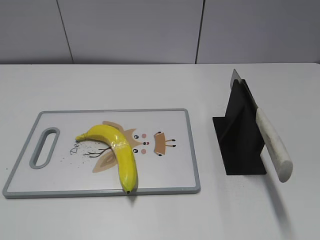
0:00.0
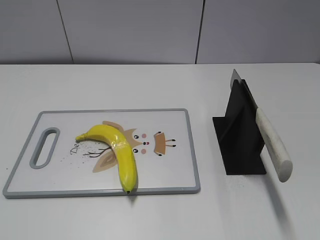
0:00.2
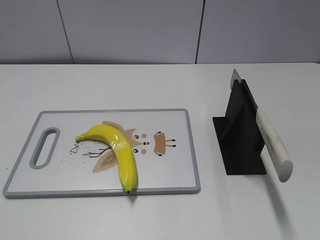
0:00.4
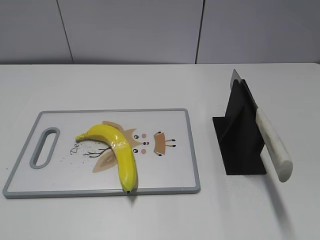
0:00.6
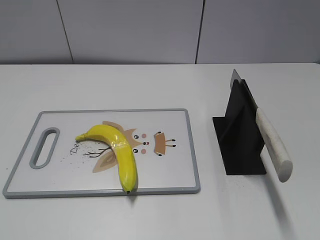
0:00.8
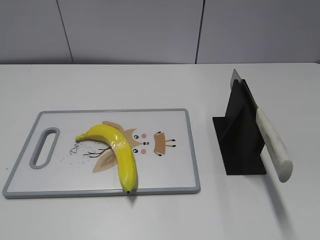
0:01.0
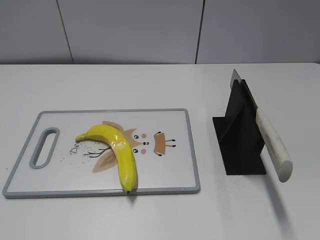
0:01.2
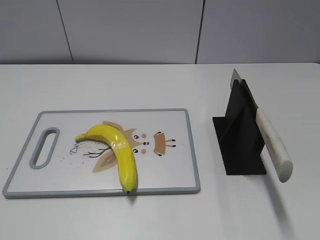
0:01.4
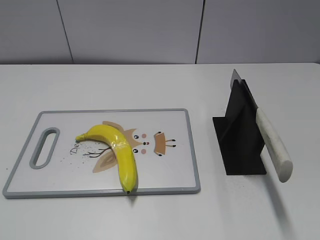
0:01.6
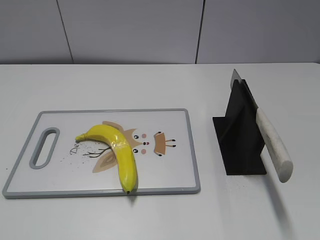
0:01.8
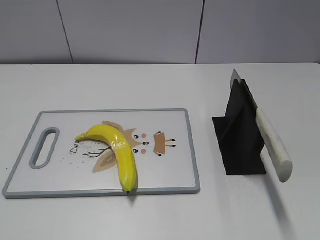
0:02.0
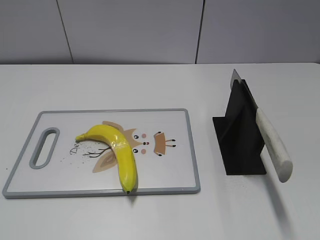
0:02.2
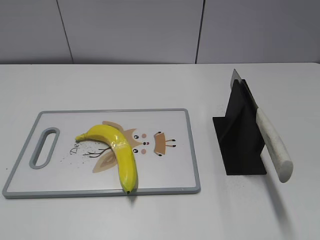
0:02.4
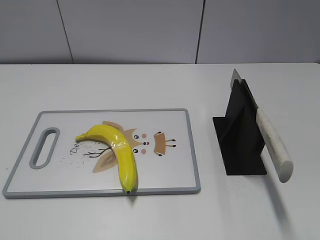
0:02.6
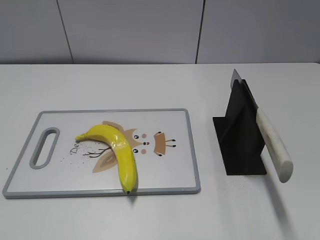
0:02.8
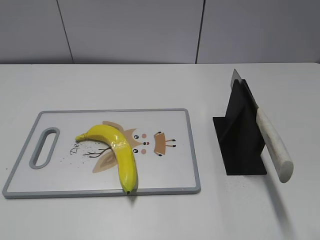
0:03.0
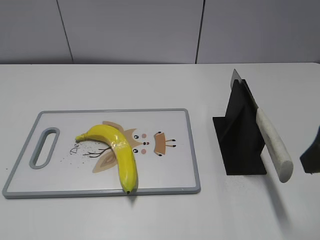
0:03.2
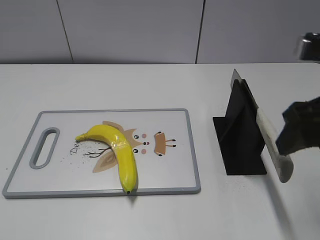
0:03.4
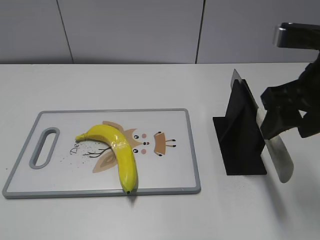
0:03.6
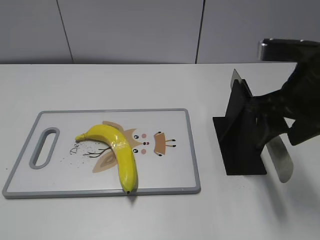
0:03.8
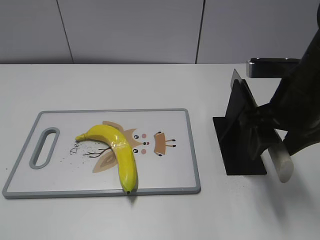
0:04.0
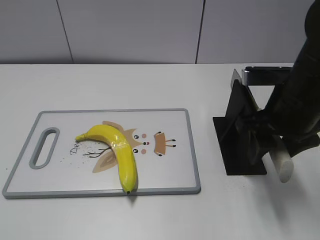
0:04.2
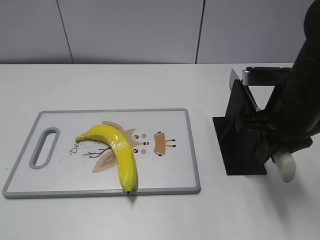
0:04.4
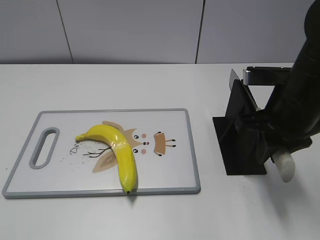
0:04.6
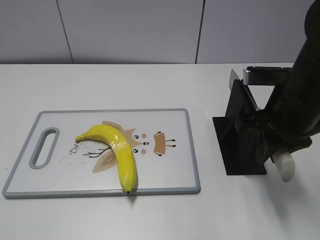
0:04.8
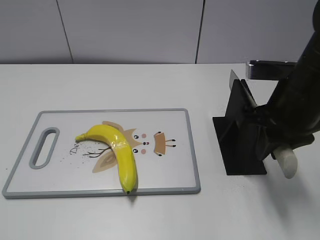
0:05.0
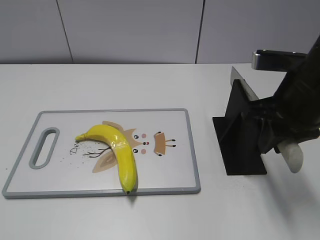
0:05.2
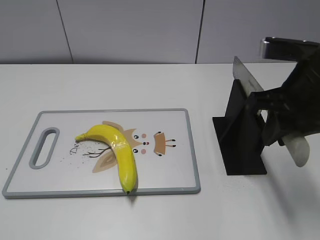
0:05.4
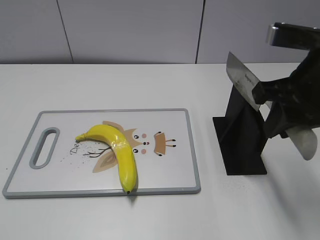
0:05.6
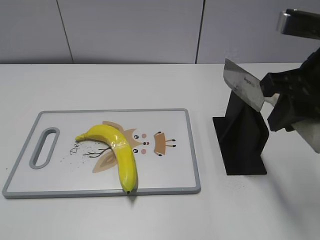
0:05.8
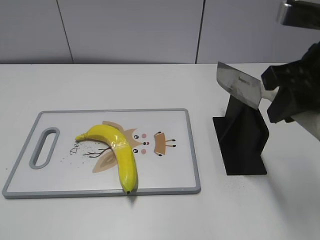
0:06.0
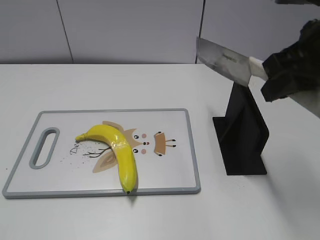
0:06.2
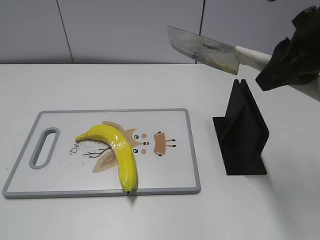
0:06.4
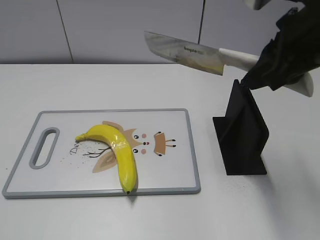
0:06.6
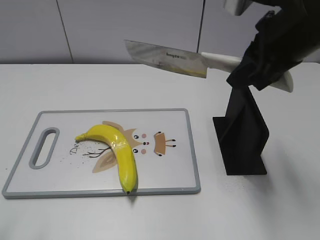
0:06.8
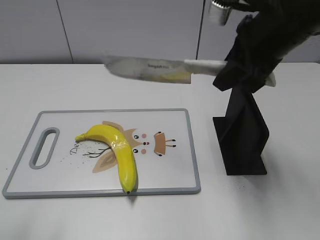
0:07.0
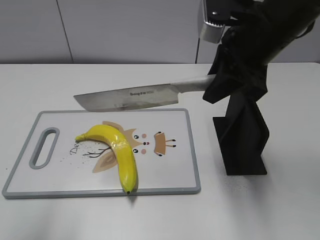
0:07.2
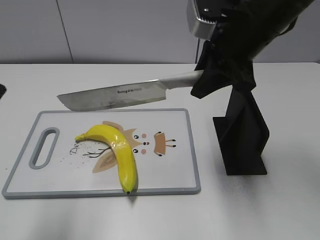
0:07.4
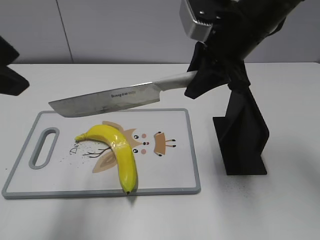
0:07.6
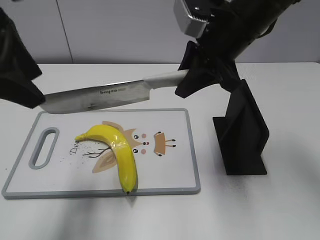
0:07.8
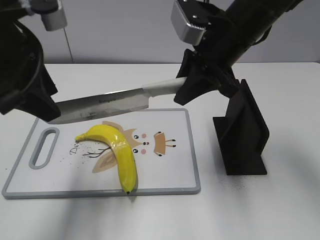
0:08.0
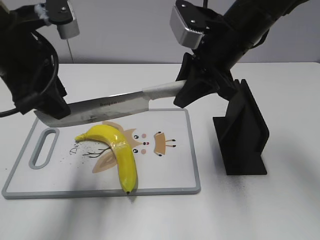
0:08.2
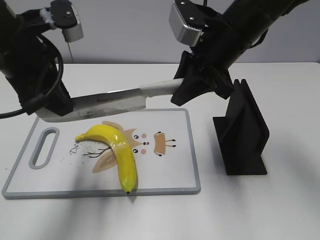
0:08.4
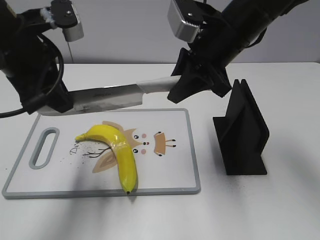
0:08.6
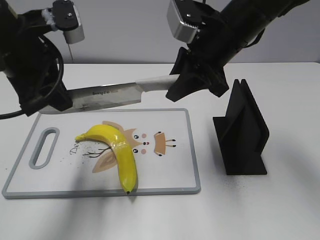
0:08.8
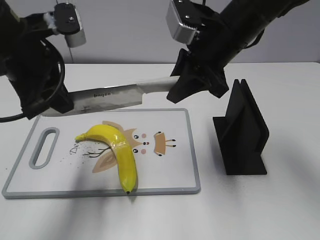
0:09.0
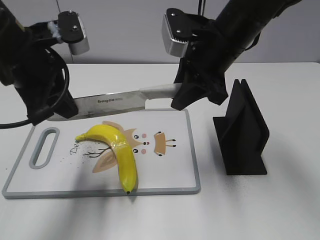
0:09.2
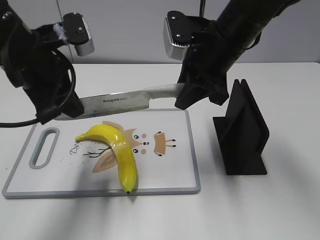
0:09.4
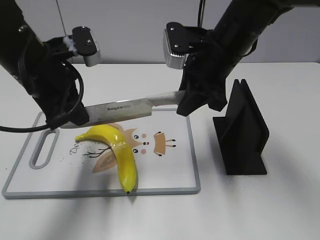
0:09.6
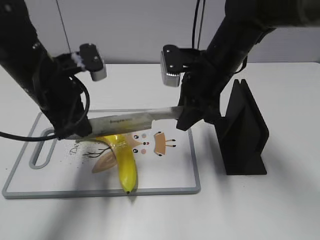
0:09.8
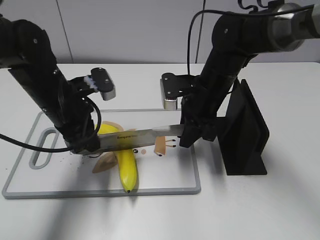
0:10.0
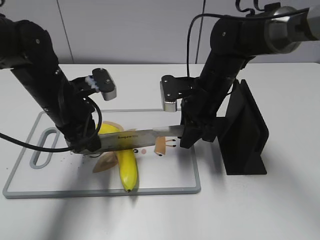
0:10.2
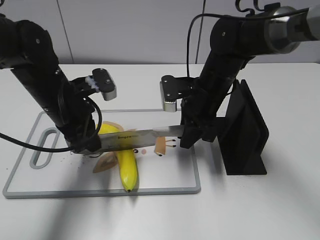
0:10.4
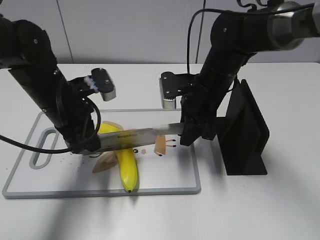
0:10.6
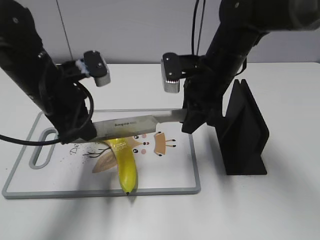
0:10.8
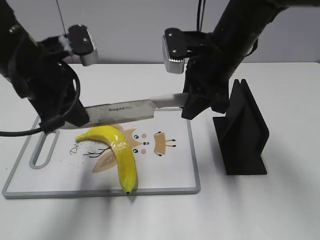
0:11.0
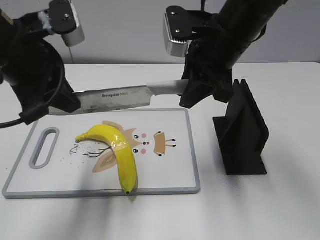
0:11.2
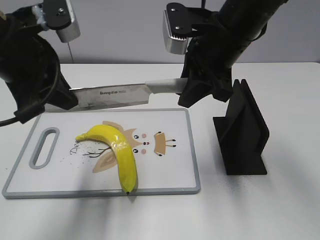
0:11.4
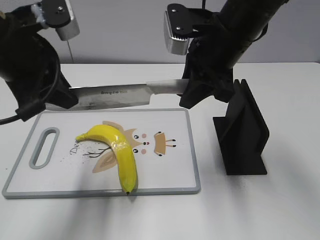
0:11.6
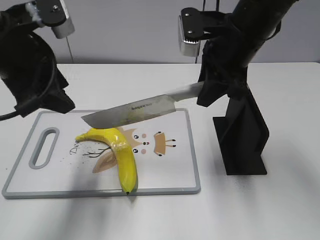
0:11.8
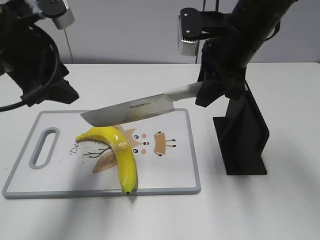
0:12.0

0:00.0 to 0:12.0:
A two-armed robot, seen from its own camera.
Task of the whole recording: cut plastic banana.
Step, 0:00.0 to 0:05.4: Grab the knife handle with your right hand.
Step, 0:05.6 to 0:10.8: Lift the knife with your right hand.
0:03.0 to 0:04.4: The right gripper moves forward, downward and to the left, some 15 cm, and closes.
0:04.4 to 0:06.0: The right gripper moves upward, roughly 10 cm.
0:06.0 to 0:07.6: The right gripper heads forward and to the left, covering roughly 15 cm. The left gripper heads forward, to the right and upward, covering approximately 25 cm.
0:07.6 to 0:09.0: The left gripper heads forward and downward, covering about 15 cm, and closes its fingers.
0:09.0 to 0:10.4: The grippers both shift downward by some 15 cm.
0:10.4 to 0:12.0: Both grippers move upward, roughly 15 cm. The left gripper opens up.

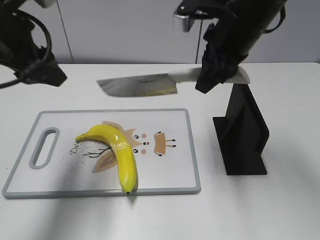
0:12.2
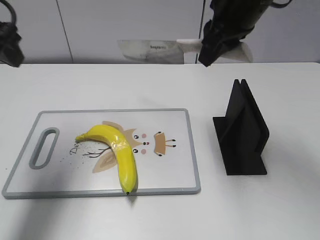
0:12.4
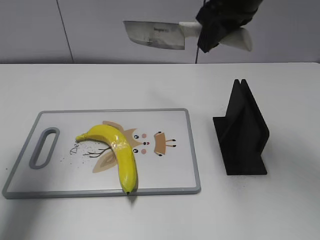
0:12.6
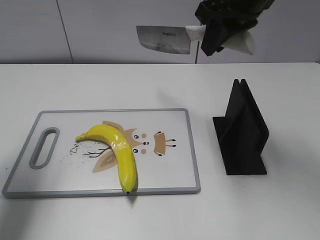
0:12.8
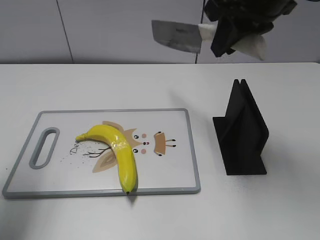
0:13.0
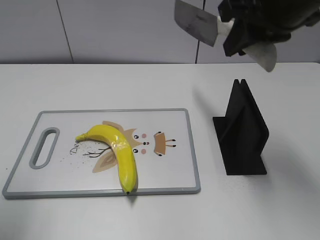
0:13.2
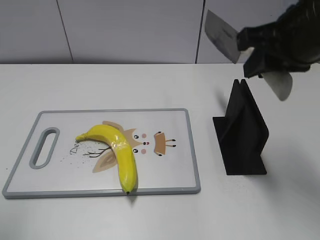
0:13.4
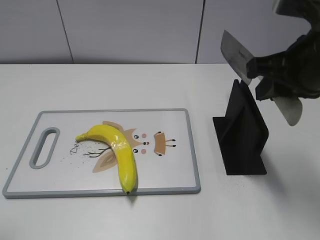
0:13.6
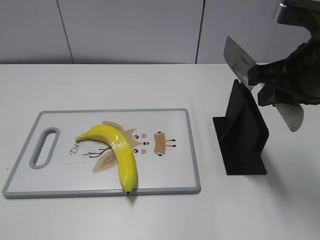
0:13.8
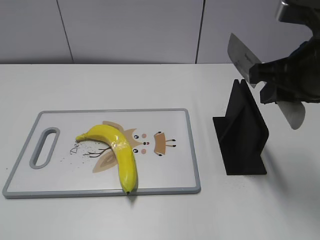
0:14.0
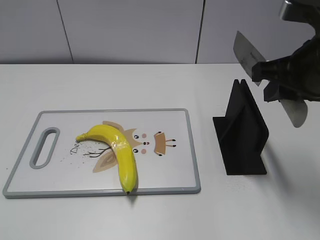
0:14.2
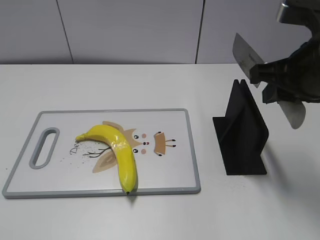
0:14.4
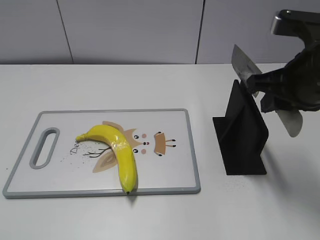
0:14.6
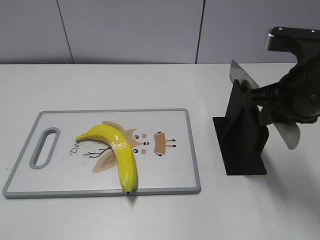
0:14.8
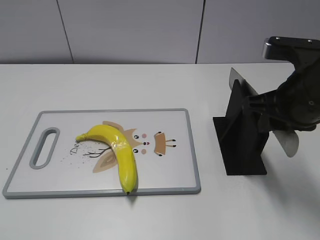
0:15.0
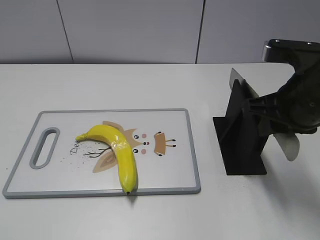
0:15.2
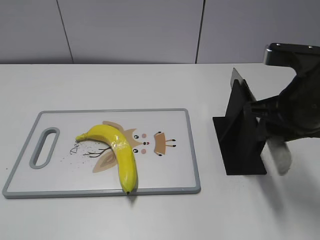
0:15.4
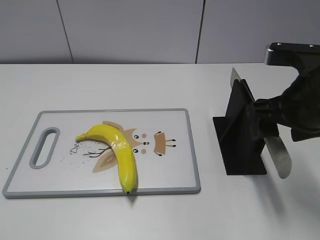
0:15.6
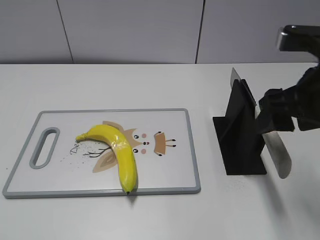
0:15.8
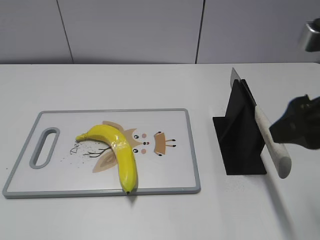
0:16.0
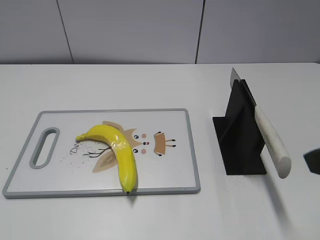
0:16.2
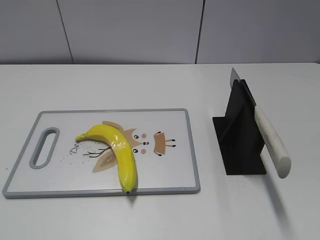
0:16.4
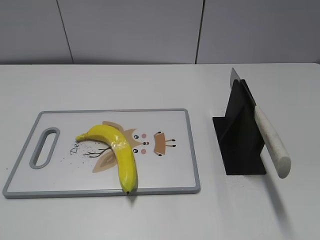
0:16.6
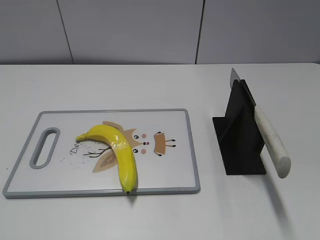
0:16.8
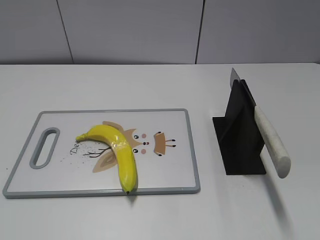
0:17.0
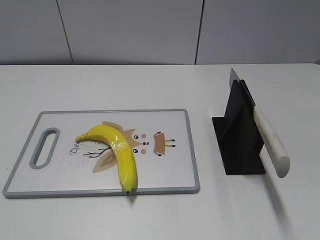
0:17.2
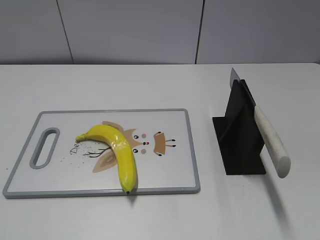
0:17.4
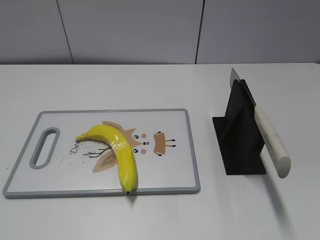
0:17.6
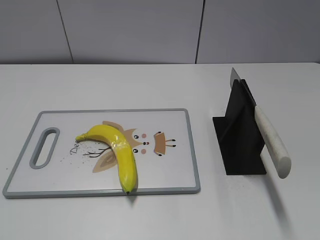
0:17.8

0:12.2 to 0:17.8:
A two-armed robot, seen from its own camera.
Task of the whole recording: cut plastic banana.
Step, 0:13.4 to 0:14.2: Lift the knife with your right hand.
Step, 0:14.4 to 0:17.8: Place the knife on the storage rack with your right hand.
0:12.2 to 0:13.6: The right gripper heads backward and to the right, covering some 10 cm. Meanwhile the left gripper heads backward and to the left, covering about 20 cm.
0:13.6 to 0:15.0: The right gripper is displaced downward by some 5 cm.
0:15.0 to 0:16.4: The right gripper moves backward, about 15 cm, and opens up.

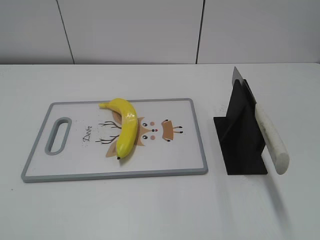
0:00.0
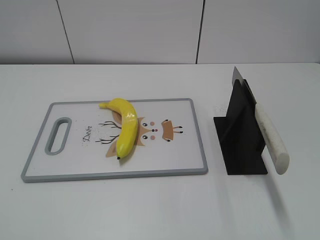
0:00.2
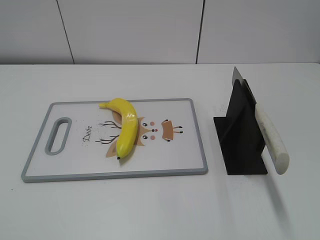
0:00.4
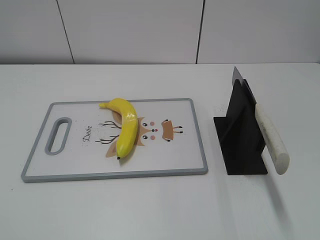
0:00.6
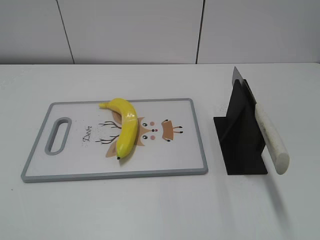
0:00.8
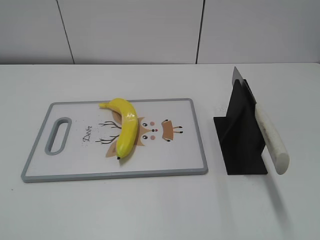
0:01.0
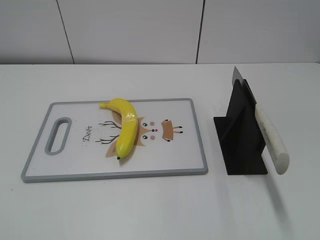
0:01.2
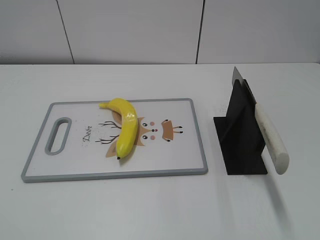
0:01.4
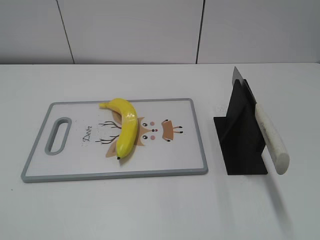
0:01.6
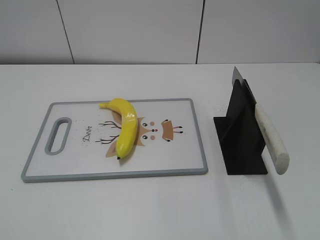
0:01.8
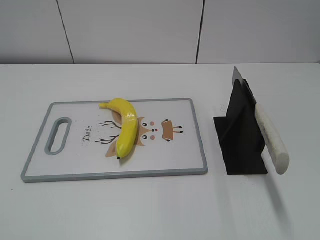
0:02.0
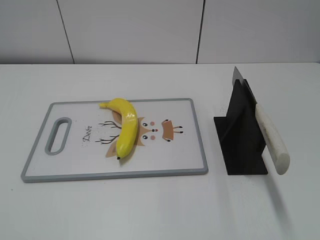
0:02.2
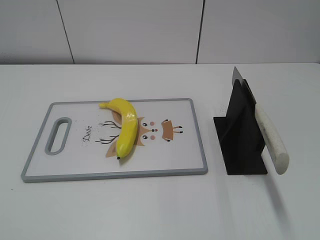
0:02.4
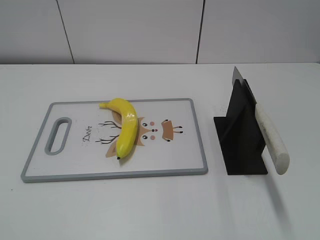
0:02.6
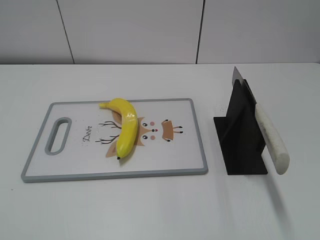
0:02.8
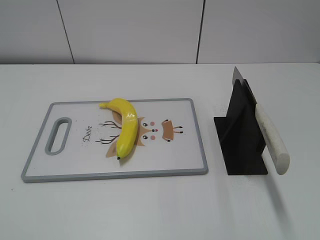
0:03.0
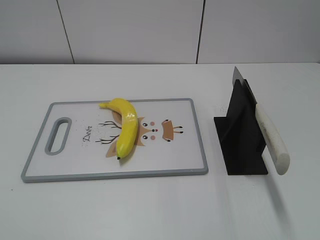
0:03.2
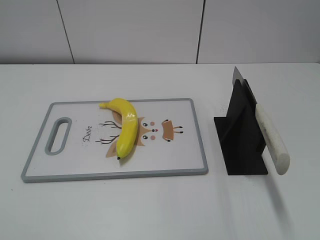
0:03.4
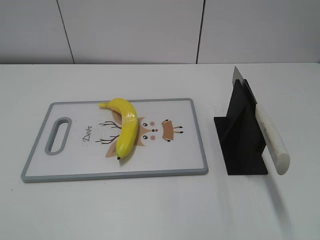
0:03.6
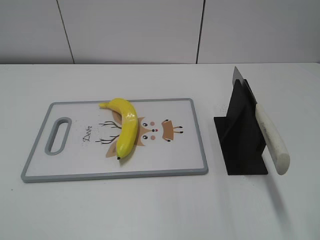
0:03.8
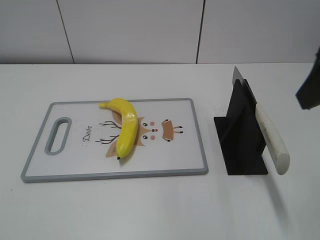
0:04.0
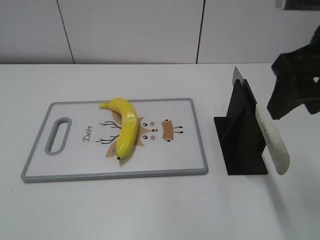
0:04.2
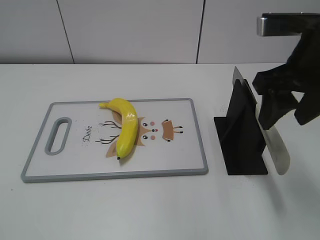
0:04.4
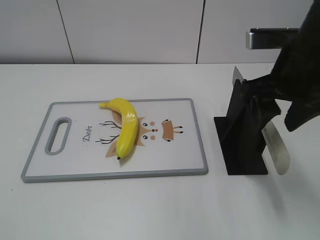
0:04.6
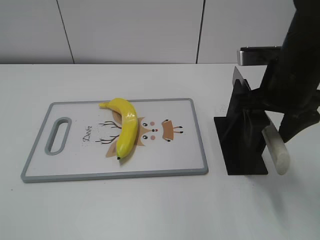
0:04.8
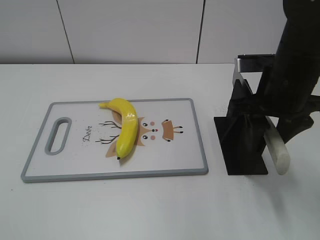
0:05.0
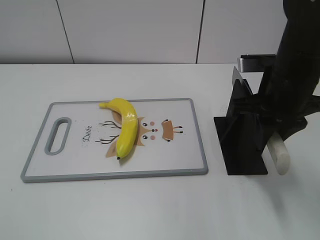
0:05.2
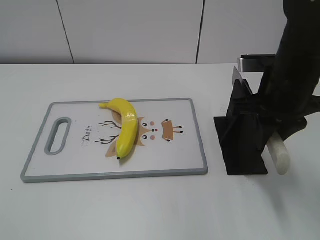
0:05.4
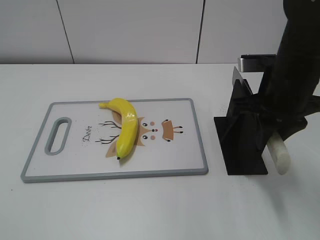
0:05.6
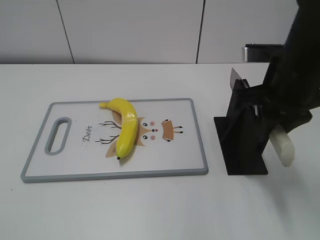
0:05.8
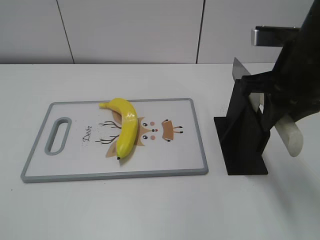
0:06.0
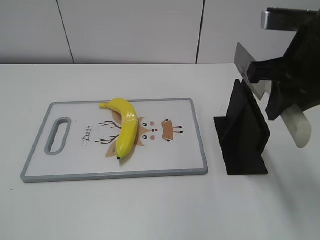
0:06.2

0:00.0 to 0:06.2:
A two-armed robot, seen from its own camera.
Task of the whole recording: cut plastic banana.
0:03.2 to 0:04.6: The right gripper moves forward, to the left and downward, approximately 25 cm.
0:04.6 to 0:06.2: The right gripper closes up.
